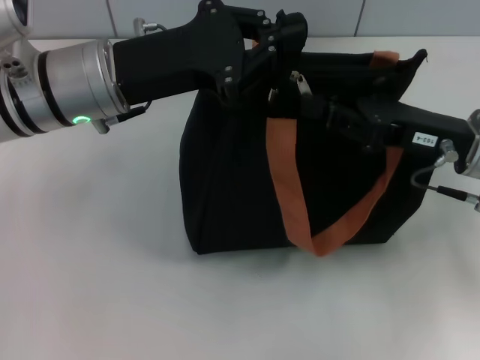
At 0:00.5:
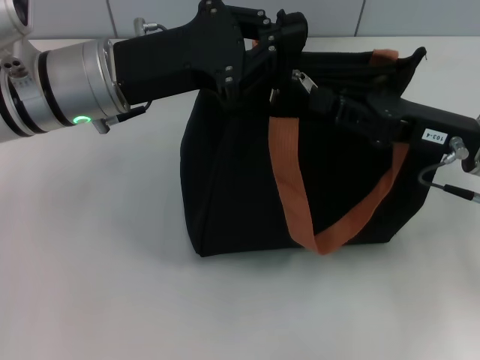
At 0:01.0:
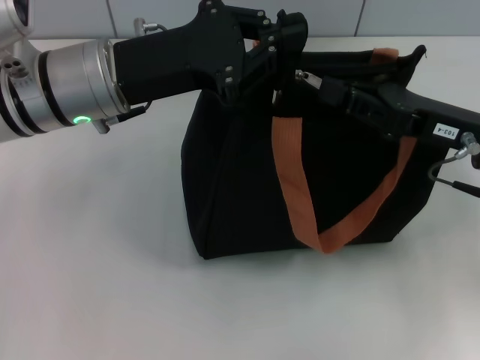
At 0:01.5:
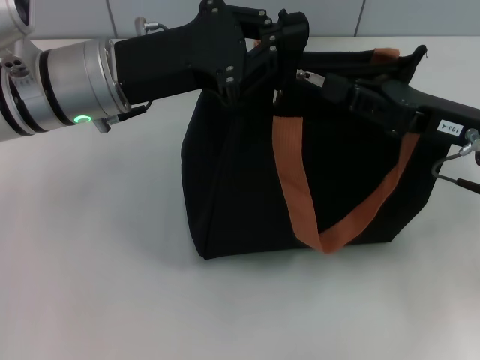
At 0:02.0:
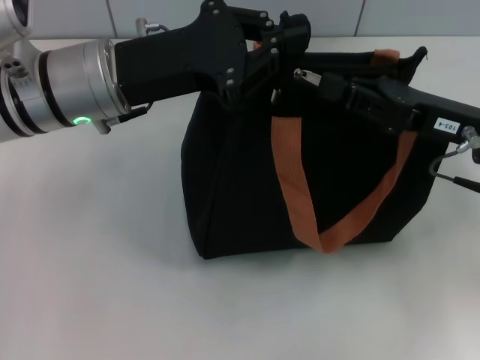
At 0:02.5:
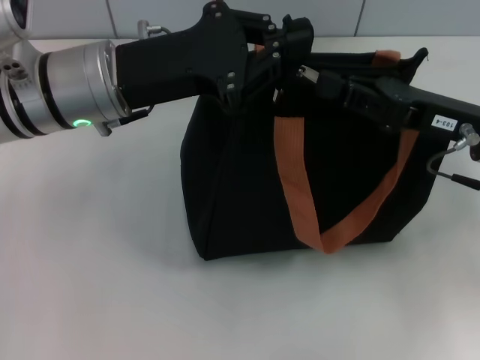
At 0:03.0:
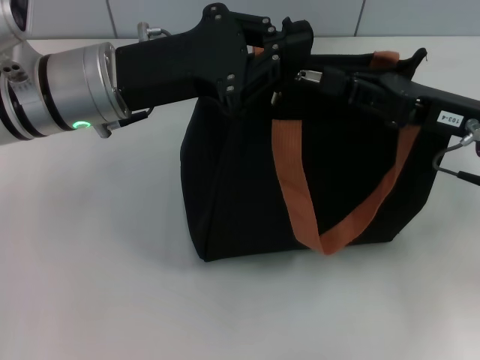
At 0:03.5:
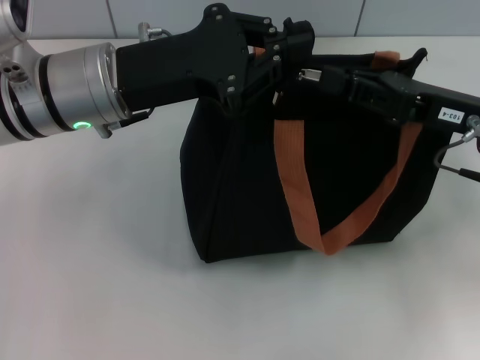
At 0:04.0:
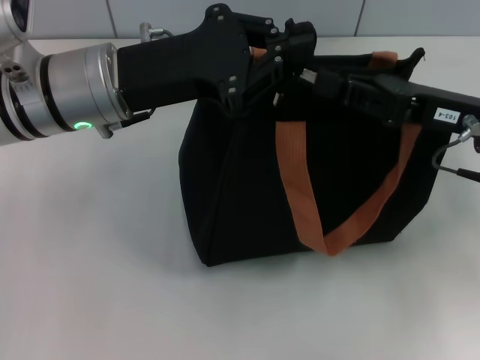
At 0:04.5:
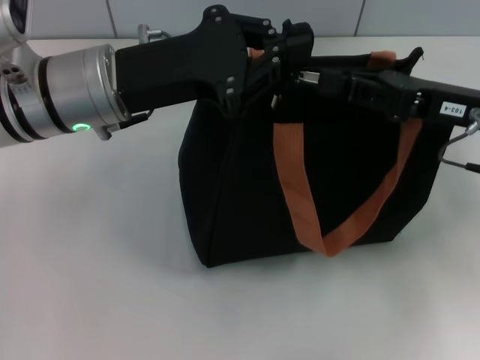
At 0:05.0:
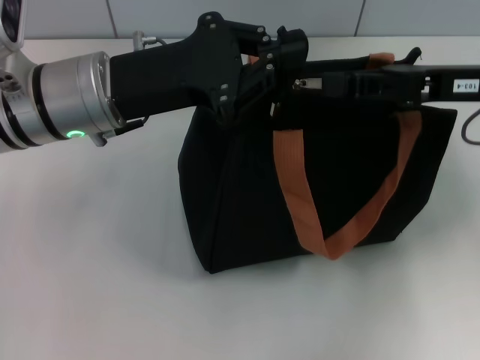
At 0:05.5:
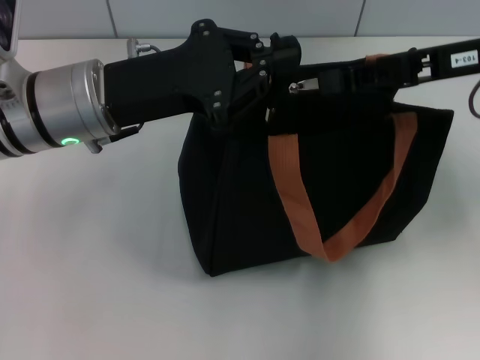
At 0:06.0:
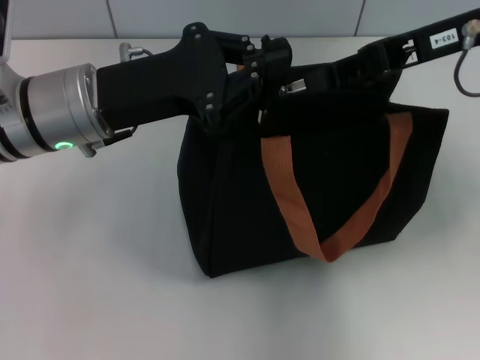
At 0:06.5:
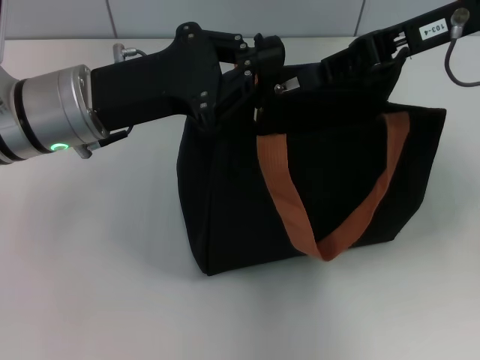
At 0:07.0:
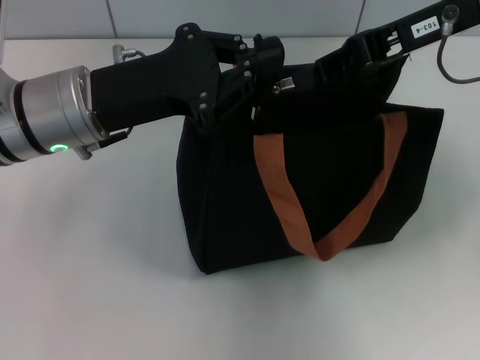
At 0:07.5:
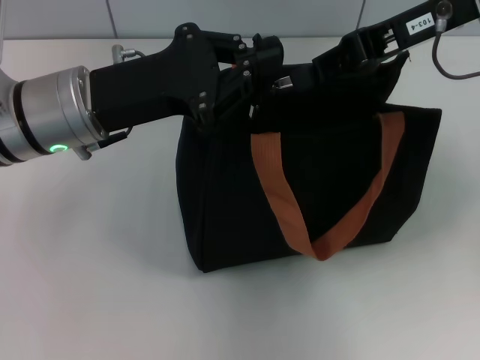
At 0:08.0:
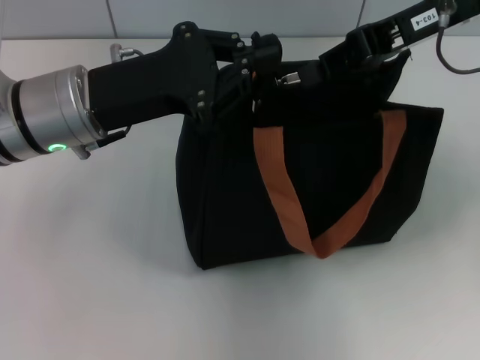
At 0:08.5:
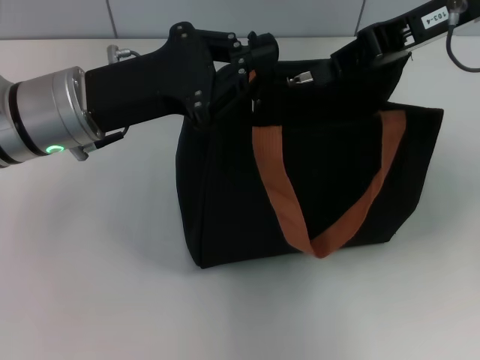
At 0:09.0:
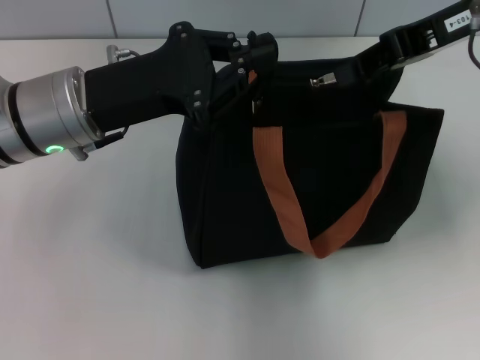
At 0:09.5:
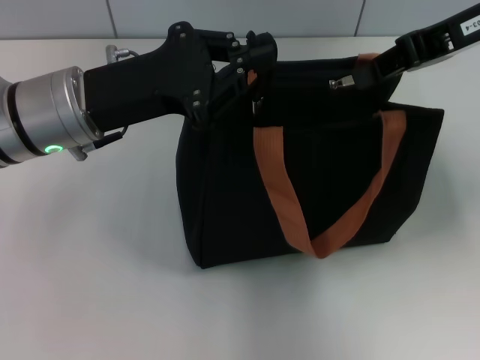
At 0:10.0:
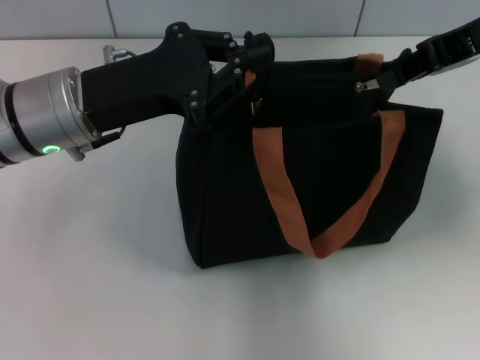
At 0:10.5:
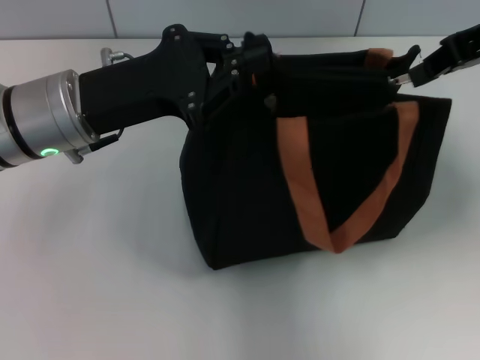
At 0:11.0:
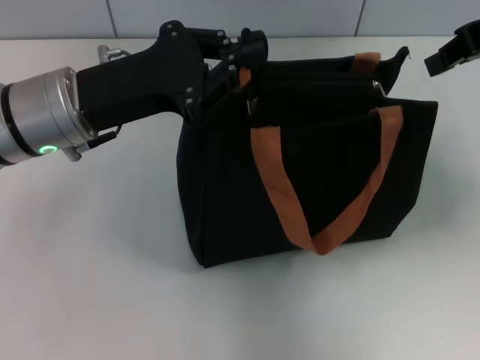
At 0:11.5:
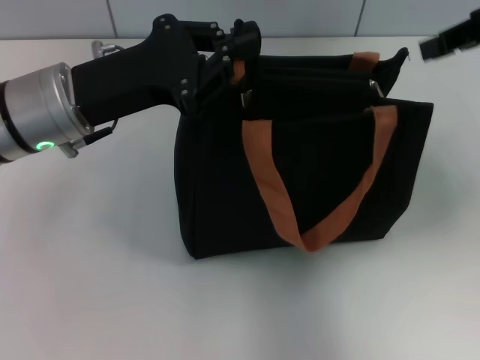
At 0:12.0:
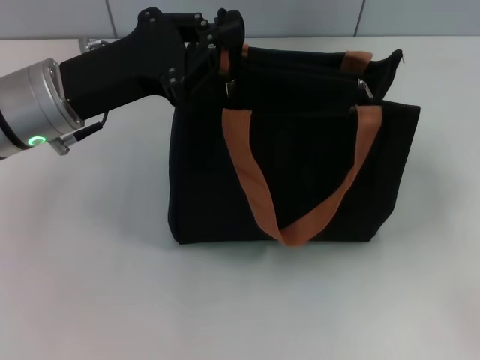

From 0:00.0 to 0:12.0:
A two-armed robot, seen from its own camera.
Step, from 0:00.0 to 0:10.5: Pull up the zipper with your right hand.
From 0:00.0 to 0:02.0: The grippers make only small movements.
From 0:02.0 to 0:04.0: Both grippers stay put.
From 0:04.0 to 0:06.0: The right gripper is displaced upward and forward by some 10 cm.
From 0:06.0 to 0:08.0: The grippers move only a little.
From 0:08.0 to 0:10.0: There are only small adjustments of the grippers.
From 0:10.0 to 0:12.0: The right gripper moves to the right, backward and downward, roughly 15 cm, and opens.

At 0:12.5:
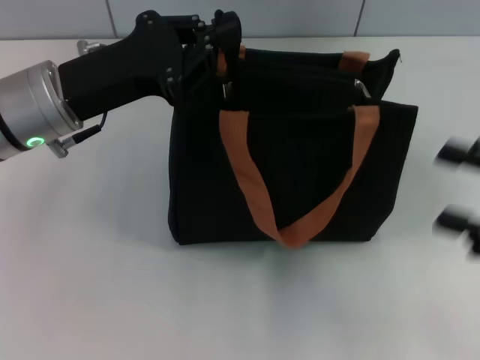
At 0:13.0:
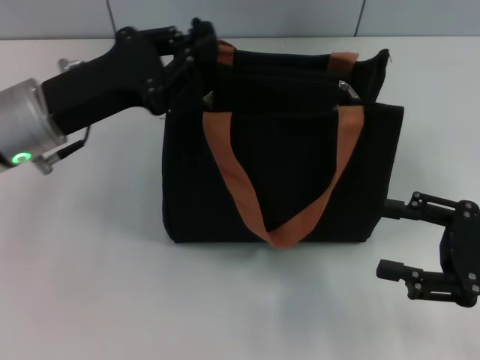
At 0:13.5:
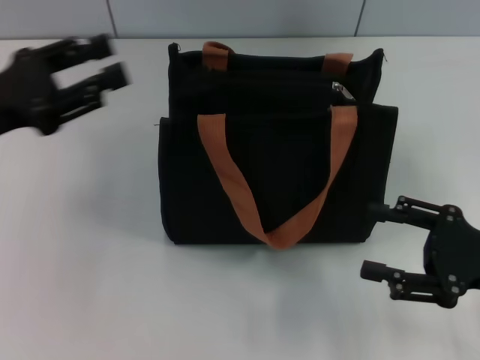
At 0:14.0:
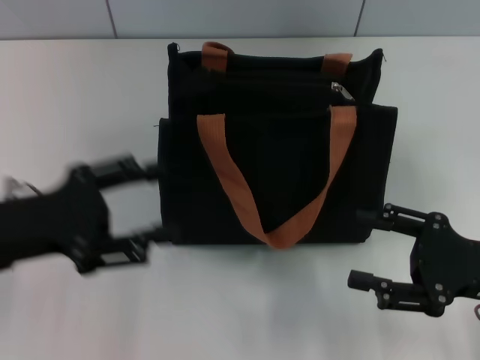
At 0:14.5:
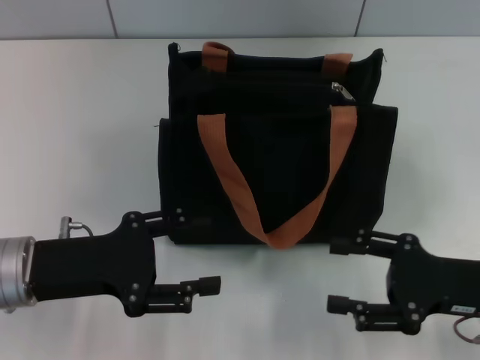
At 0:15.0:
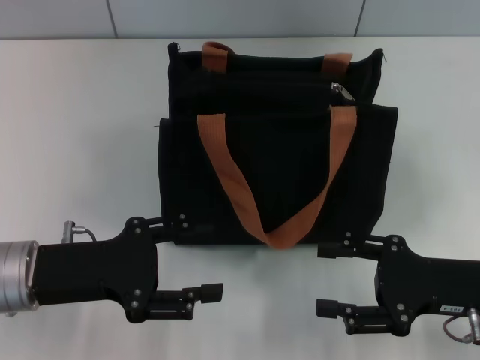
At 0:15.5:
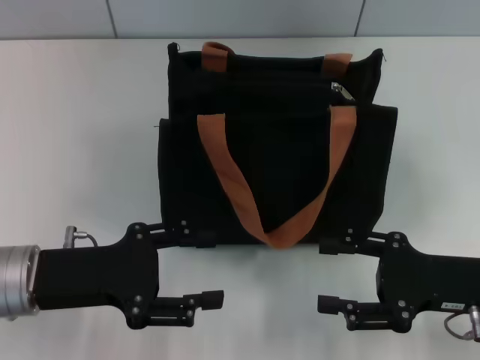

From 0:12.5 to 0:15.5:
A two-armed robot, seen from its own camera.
From 0:12.5 to 0:14.0: The right gripper shifts by approximately 5 cm; the left gripper heads backward and to the left, covering about 10 cm, and opens.
From 0:14.0 to 0:15.5: The grippers move only a little.

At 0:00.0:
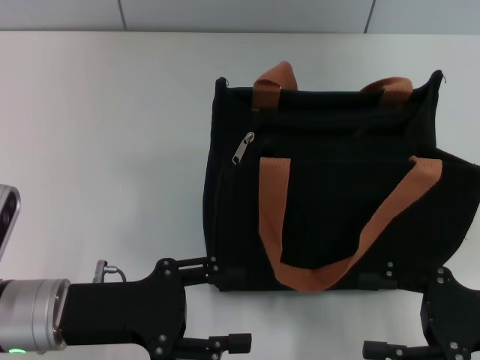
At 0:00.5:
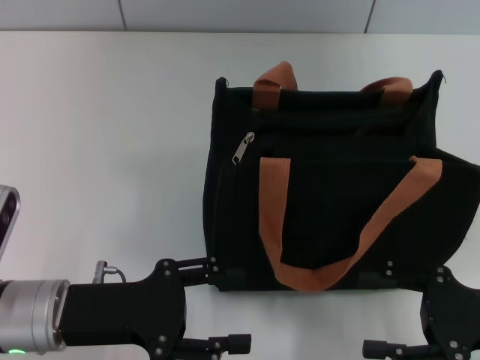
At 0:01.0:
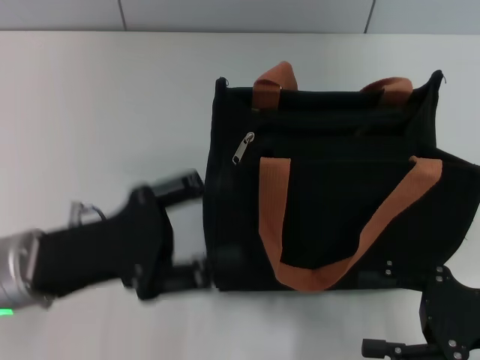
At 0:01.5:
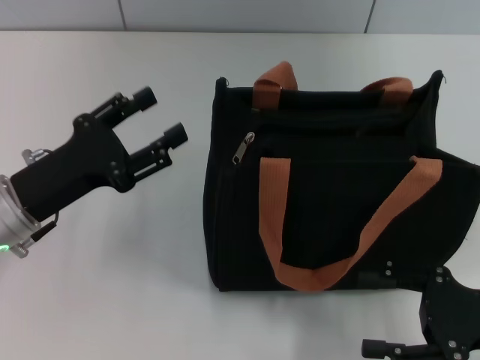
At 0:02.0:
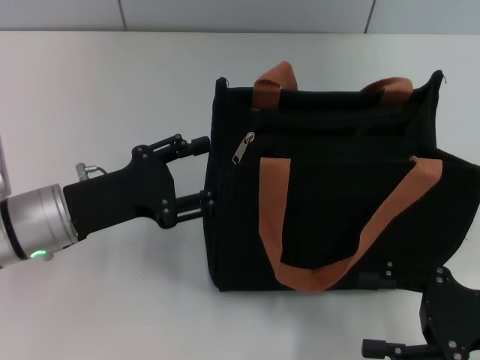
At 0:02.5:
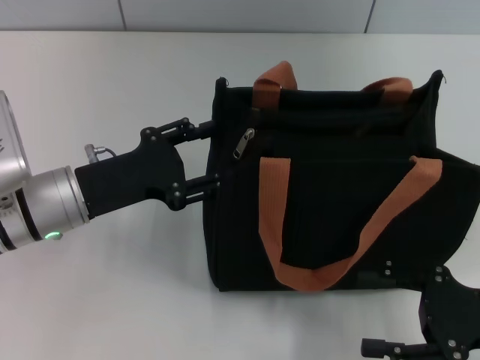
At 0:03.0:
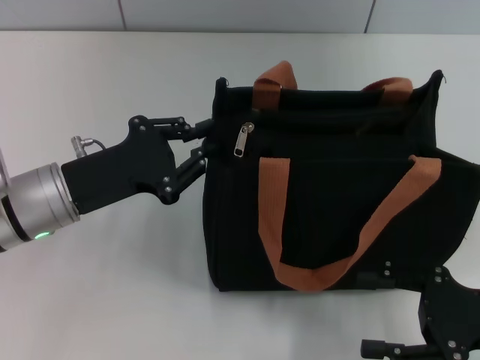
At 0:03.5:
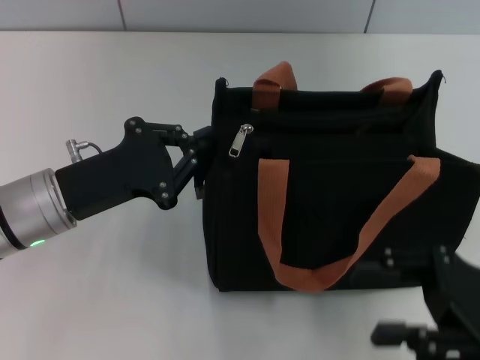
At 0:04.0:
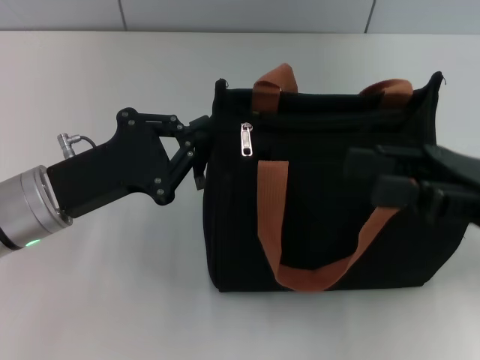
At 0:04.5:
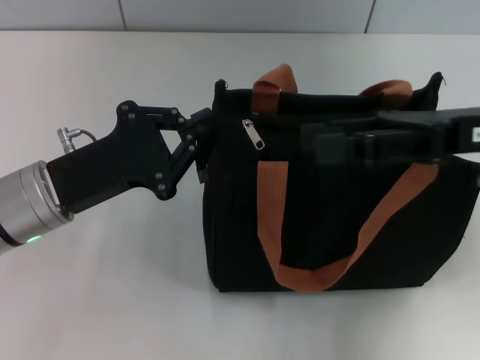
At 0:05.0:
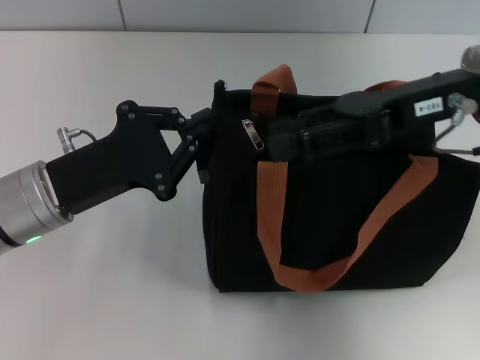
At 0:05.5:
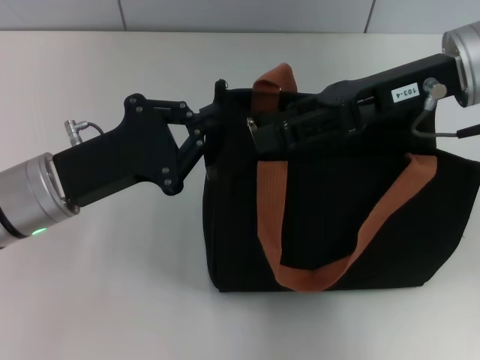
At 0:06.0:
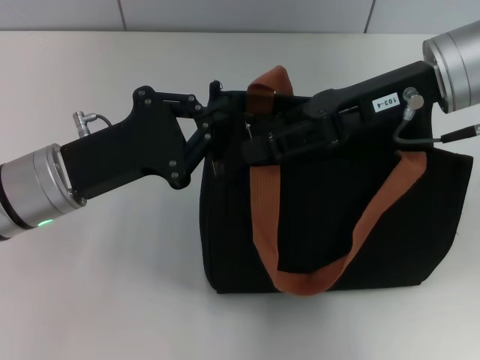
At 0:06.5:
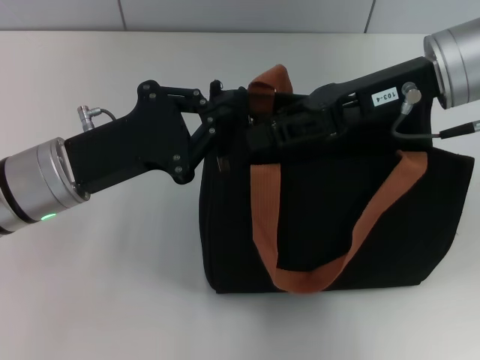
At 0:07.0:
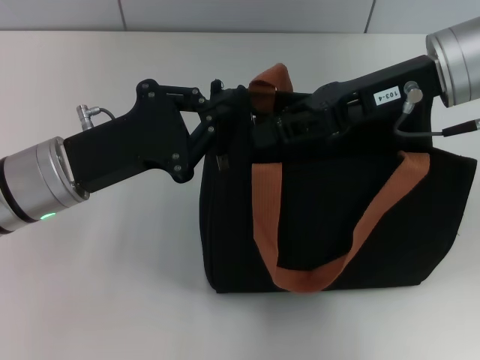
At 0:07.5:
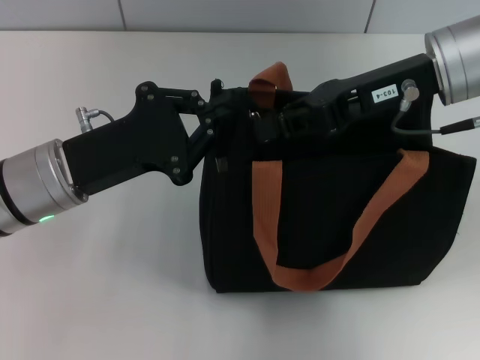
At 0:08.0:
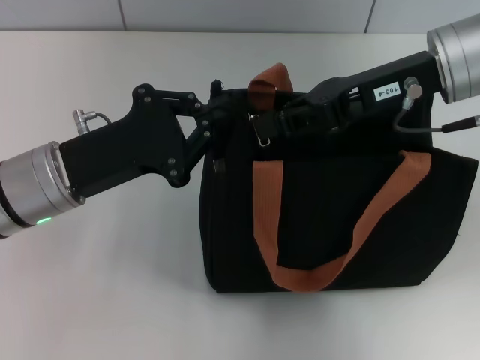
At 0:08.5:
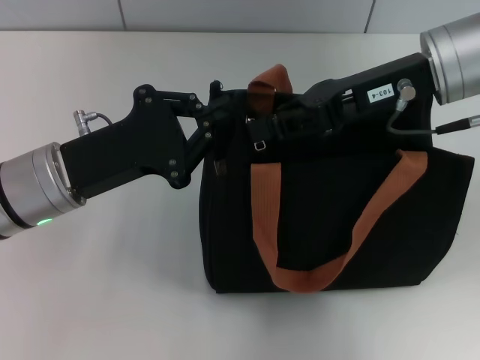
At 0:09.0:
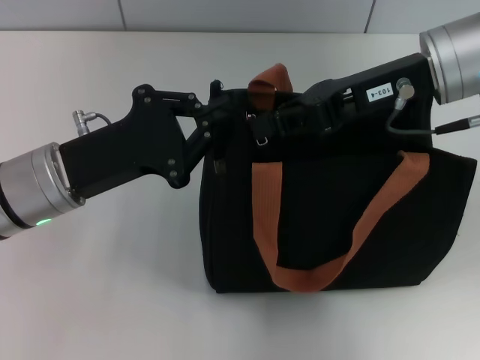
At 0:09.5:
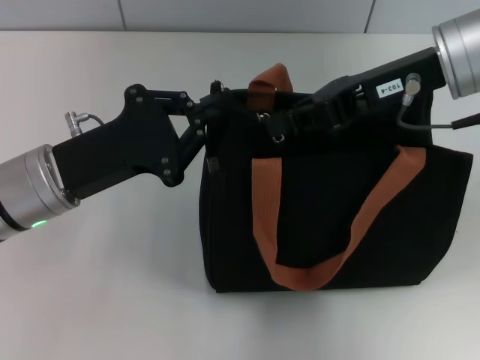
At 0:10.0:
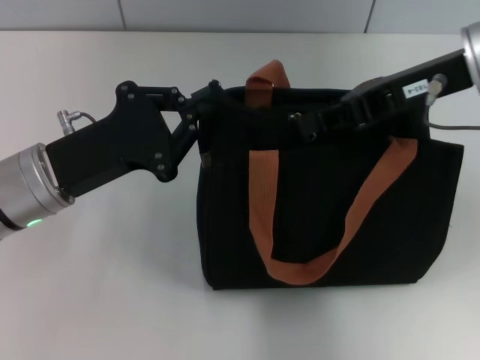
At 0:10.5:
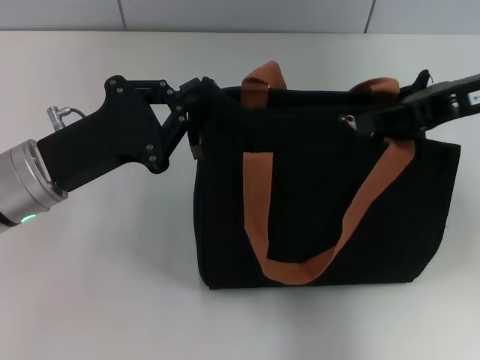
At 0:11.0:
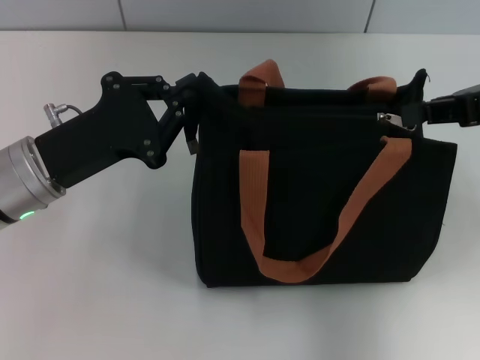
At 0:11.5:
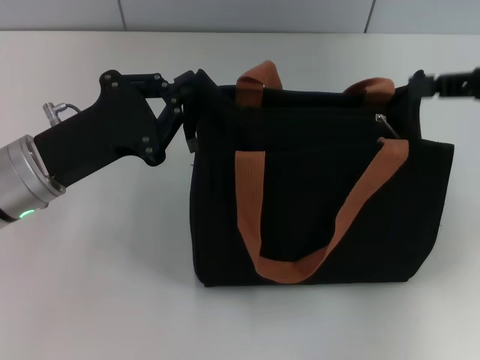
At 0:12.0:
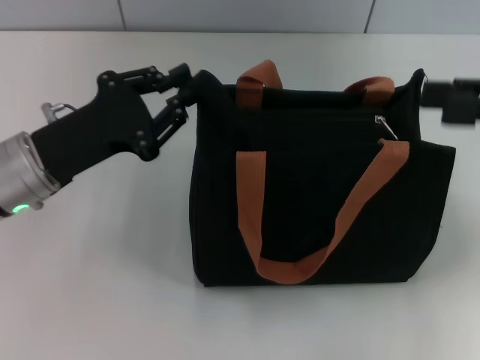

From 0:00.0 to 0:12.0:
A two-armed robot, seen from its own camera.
Step, from 0:00.0 to 0:11.0: Pull up the zipper with your right hand.
From 0:00.0 to 0:02.0: The left gripper is displaced forward by approximately 5 cm.
From 0:02.0 to 0:04.0: The right gripper is displaced upward and forward by approximately 10 cm, while the left gripper closes up.
From 0:04.0 to 0:06.0: The right gripper goes about 15 cm forward, to the left and upward.
From 0:06.0 to 0:08.0: The right gripper closes its fingers.
From 0:08.0 to 0:10.0: The grippers stay close to where they were, moving slightly.
From 0:10.0 to 0:12.0: The right gripper travels to the right and backward by some 15 cm, and opens its fingers.
